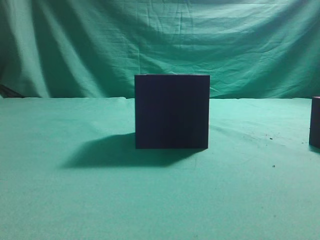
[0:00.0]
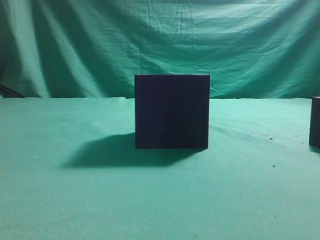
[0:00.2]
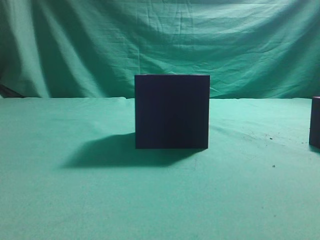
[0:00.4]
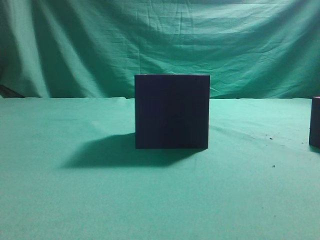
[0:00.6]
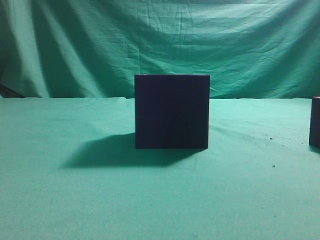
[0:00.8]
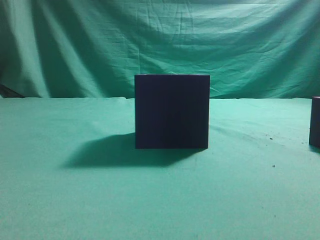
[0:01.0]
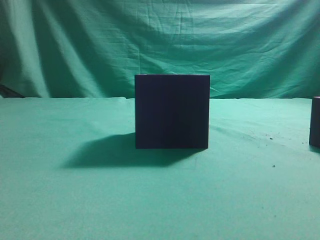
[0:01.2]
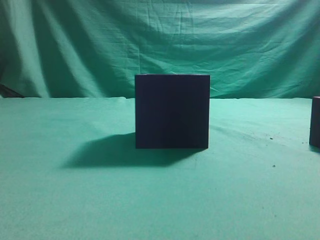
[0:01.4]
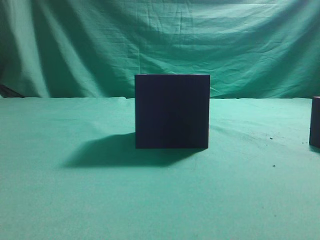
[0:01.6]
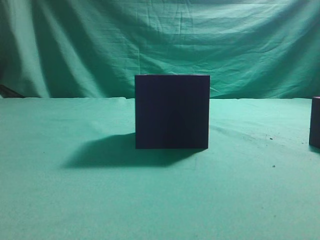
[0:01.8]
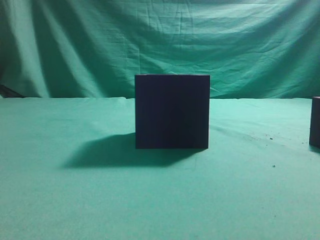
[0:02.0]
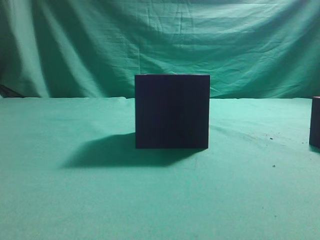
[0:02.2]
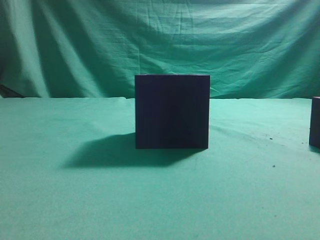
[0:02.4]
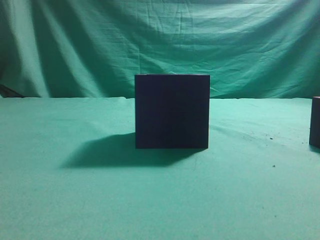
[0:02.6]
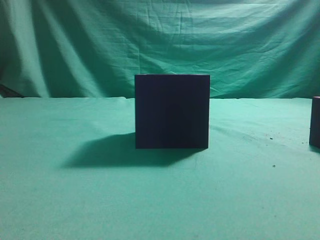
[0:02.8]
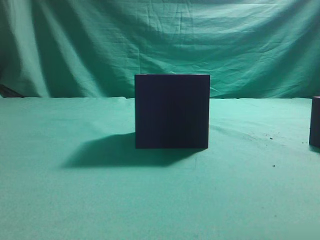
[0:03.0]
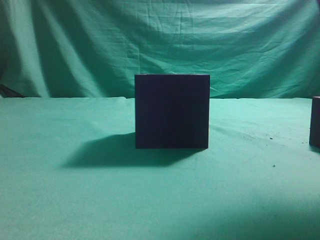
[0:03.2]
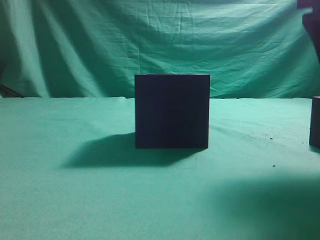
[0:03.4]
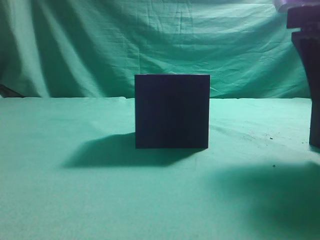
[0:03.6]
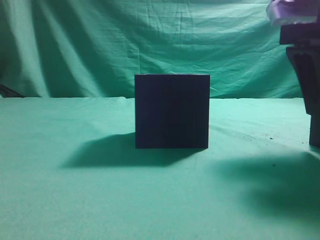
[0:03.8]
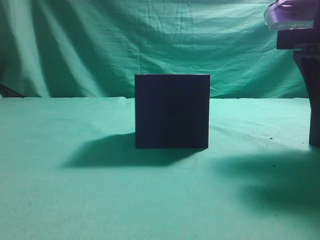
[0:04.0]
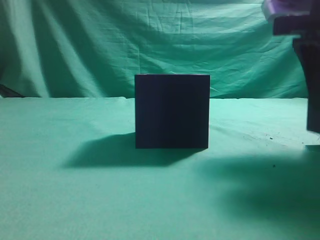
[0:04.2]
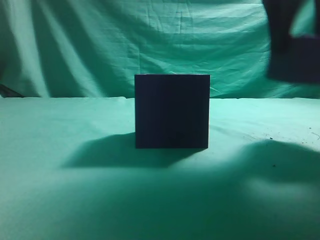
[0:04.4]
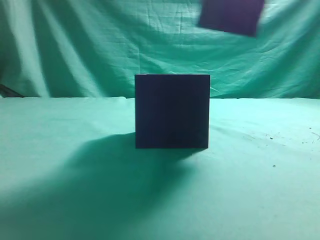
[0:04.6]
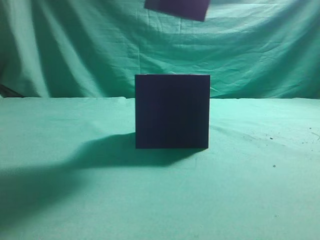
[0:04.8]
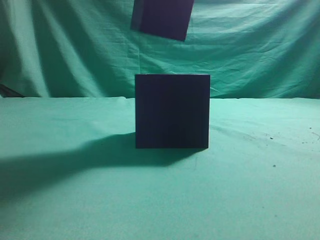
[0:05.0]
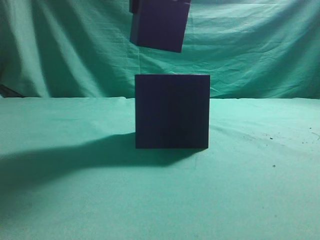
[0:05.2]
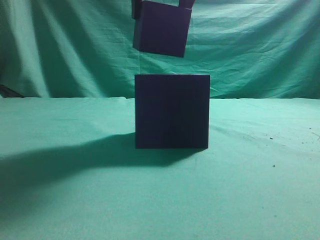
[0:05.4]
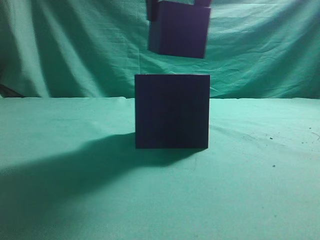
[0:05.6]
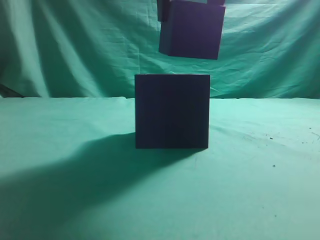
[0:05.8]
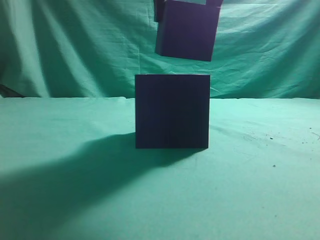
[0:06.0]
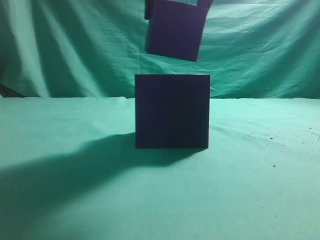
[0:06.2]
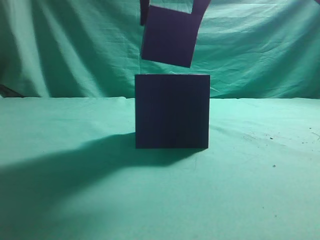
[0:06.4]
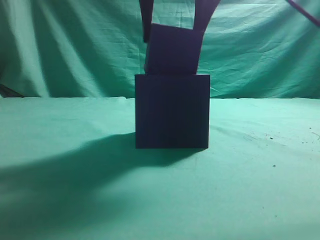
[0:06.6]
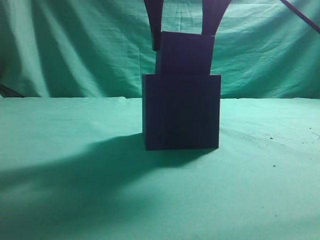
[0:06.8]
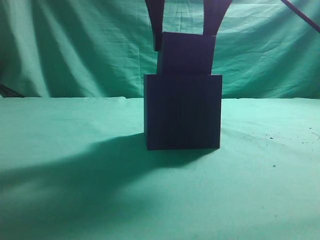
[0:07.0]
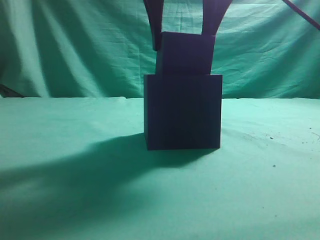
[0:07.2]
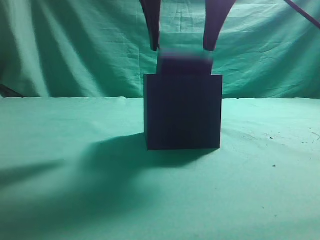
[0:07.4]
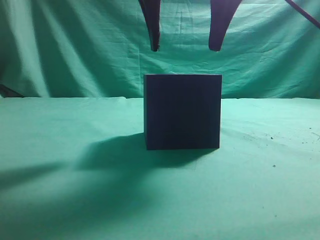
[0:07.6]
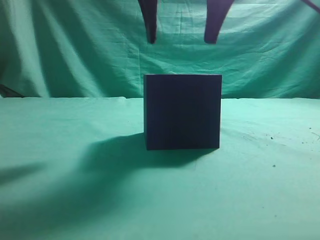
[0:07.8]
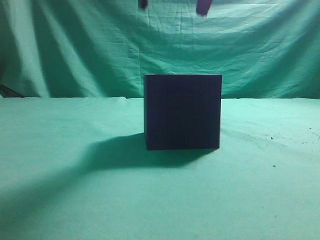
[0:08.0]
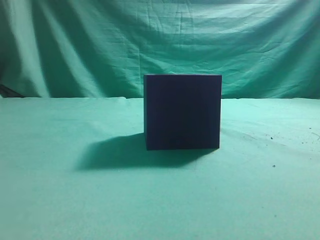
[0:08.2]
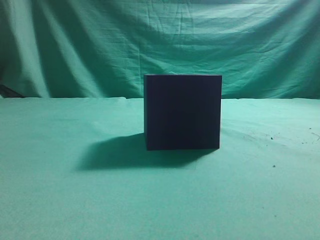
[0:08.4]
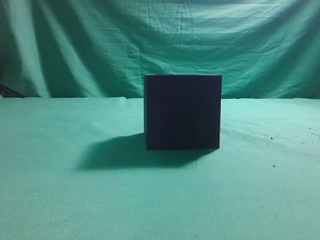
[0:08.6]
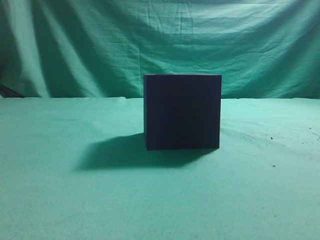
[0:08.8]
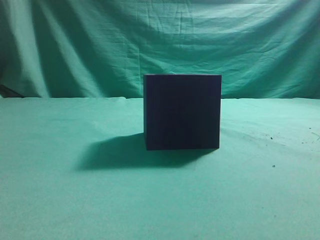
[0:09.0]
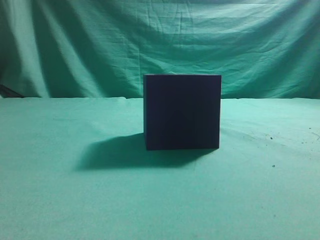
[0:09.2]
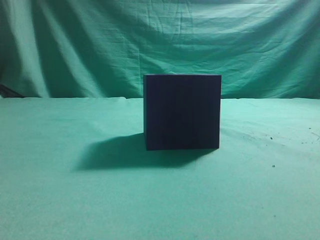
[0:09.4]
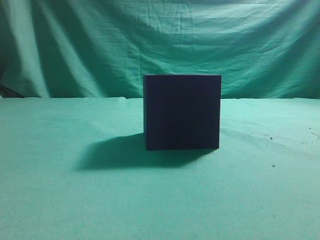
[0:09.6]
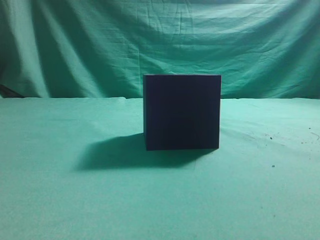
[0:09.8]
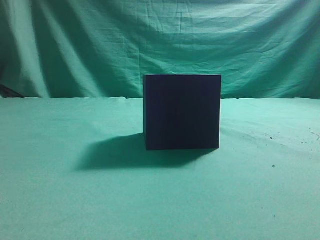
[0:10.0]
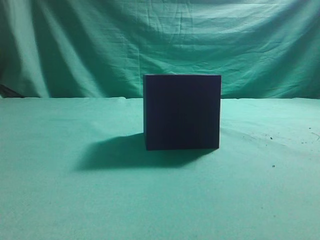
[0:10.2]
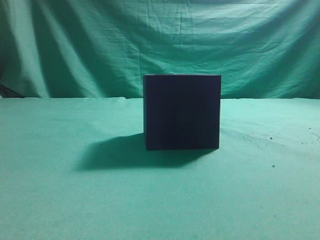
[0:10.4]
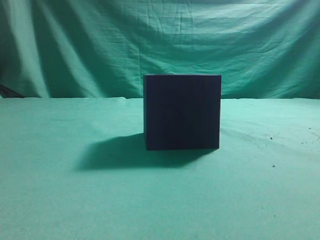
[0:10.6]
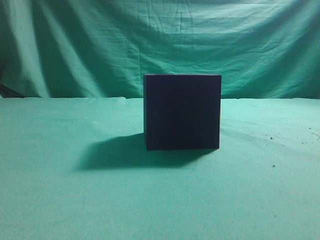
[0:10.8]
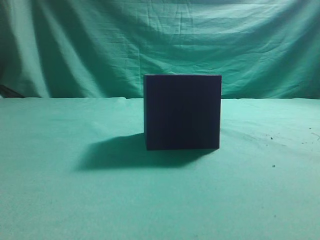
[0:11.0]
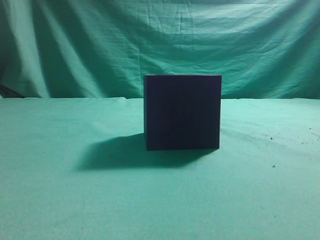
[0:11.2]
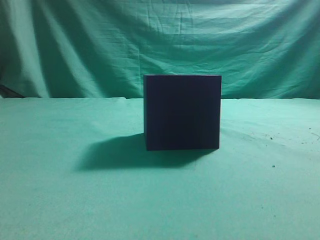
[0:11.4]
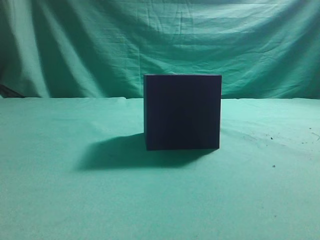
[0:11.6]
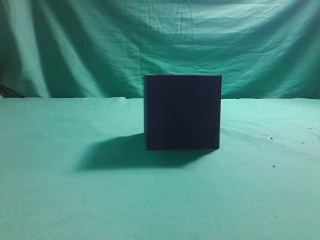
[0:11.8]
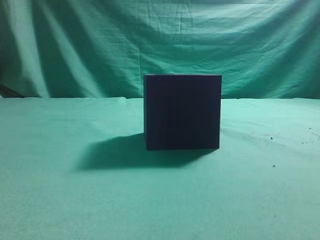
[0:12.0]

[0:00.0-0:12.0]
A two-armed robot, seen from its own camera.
Task of the whole recording: pick up the cube block and place it into the cube groove.
Step, 0:00.0 to 0:04.2: Grasp the cube.
Step, 0:04.4 to 0:07.6: Place cube into the cube-shaped recess.
0:03.0 to 0:04.4: The right gripper moves forward, about 10 cm, and opens its fingers.
0:04.4 to 0:06.0: The right gripper shifts roughly 15 cm to the left.
0:06.0 to 0:07.6: The grippers stay close to where they were, moving slightly.
0:07.6 to 0:09.0: The right gripper is displaced backward, upward and to the right by about 30 cm, and closes up.
